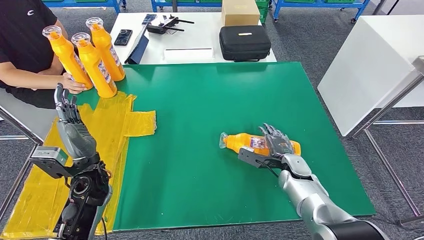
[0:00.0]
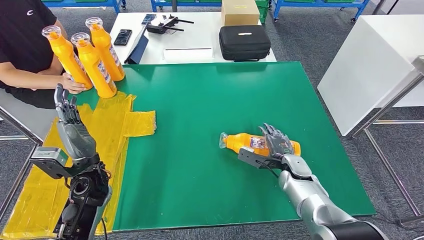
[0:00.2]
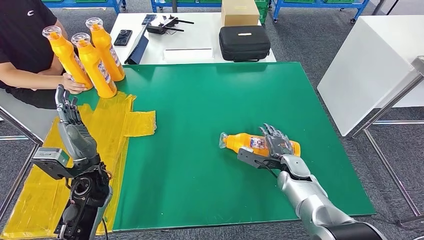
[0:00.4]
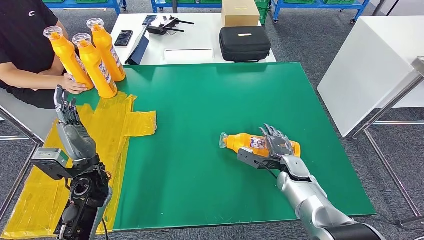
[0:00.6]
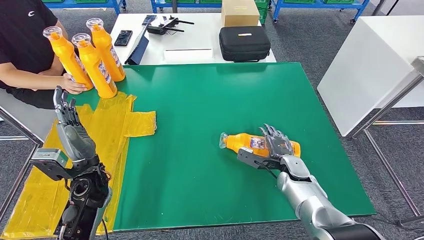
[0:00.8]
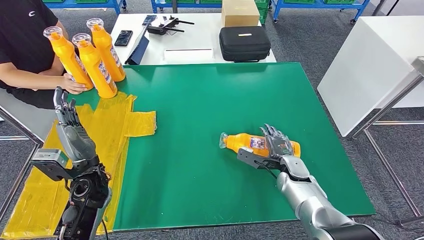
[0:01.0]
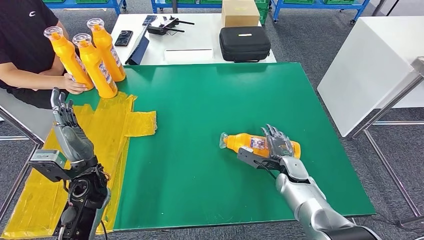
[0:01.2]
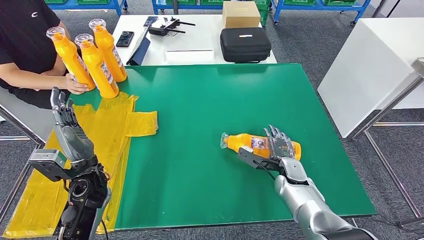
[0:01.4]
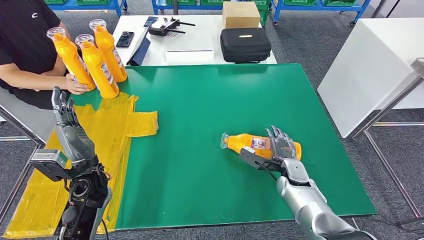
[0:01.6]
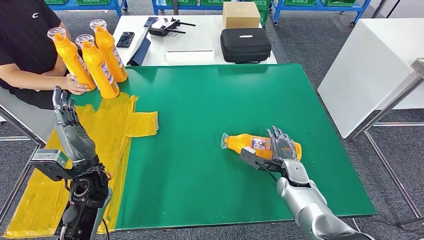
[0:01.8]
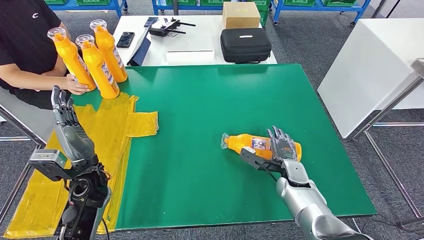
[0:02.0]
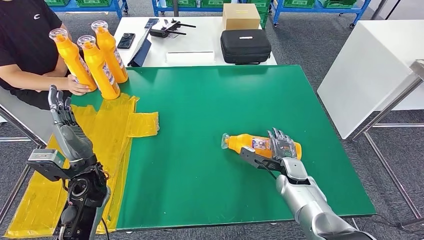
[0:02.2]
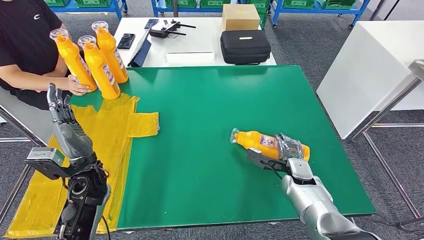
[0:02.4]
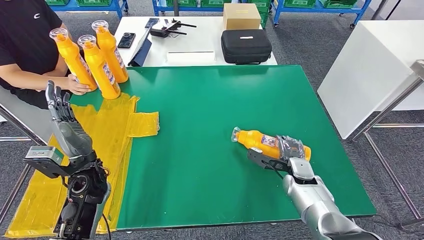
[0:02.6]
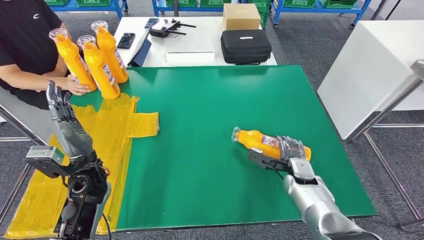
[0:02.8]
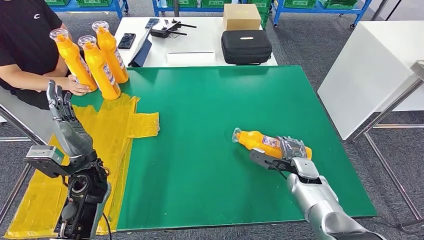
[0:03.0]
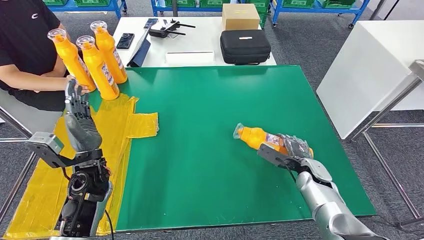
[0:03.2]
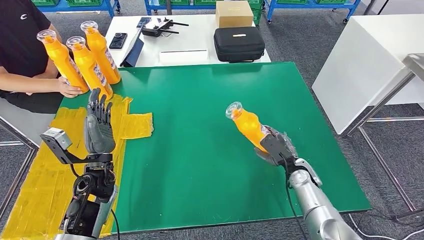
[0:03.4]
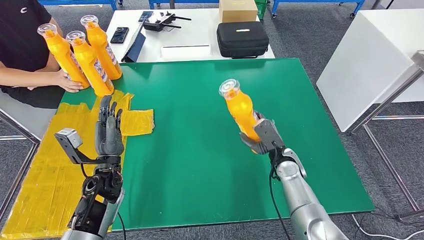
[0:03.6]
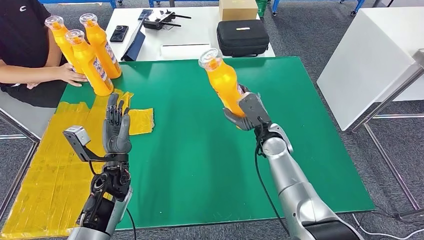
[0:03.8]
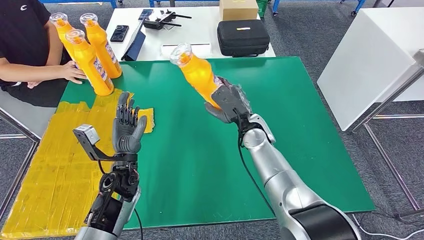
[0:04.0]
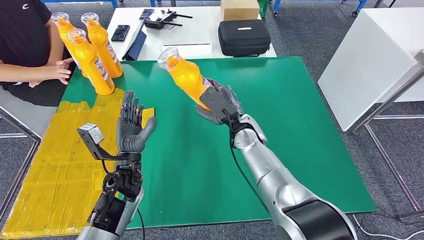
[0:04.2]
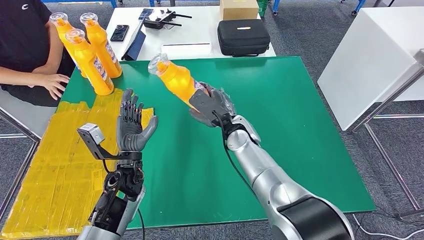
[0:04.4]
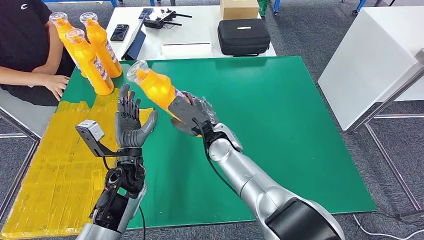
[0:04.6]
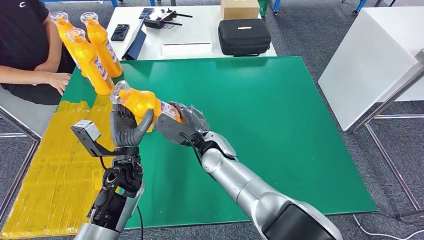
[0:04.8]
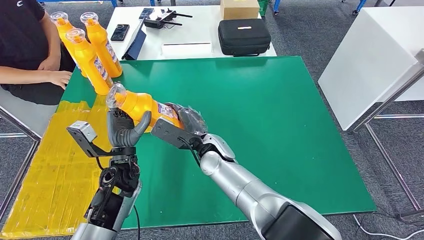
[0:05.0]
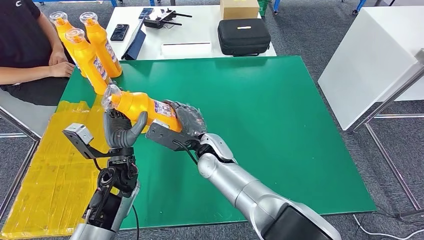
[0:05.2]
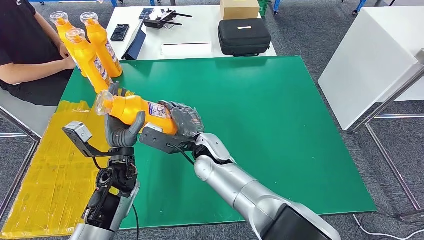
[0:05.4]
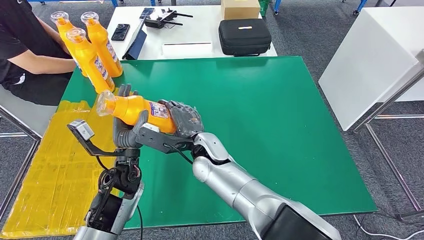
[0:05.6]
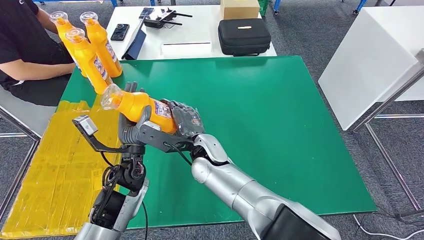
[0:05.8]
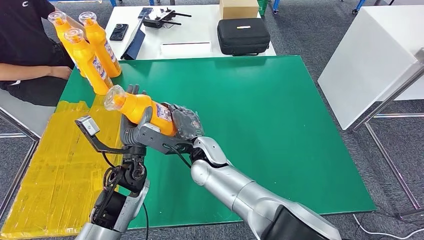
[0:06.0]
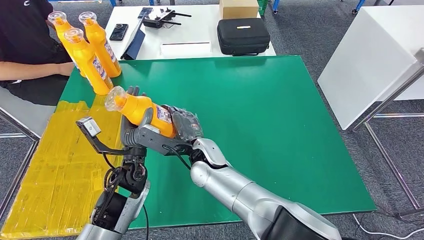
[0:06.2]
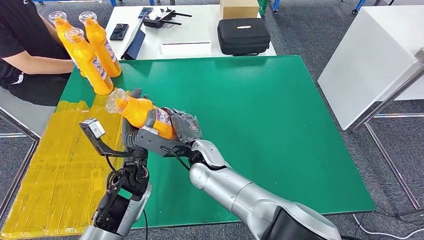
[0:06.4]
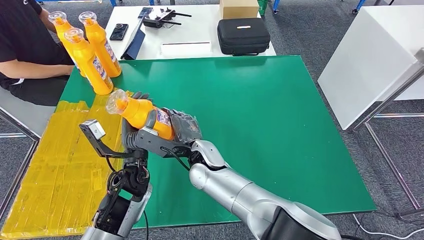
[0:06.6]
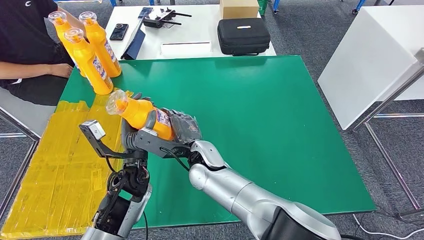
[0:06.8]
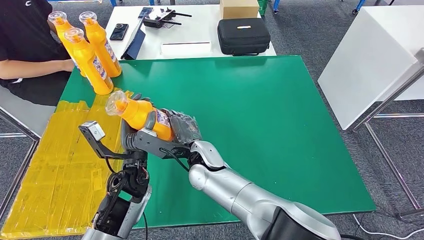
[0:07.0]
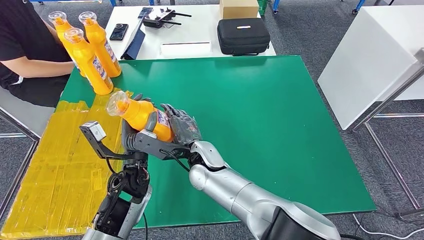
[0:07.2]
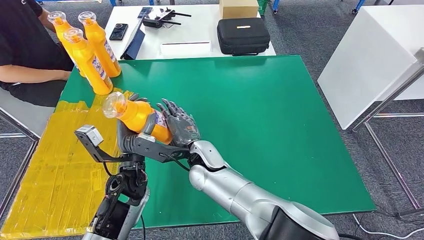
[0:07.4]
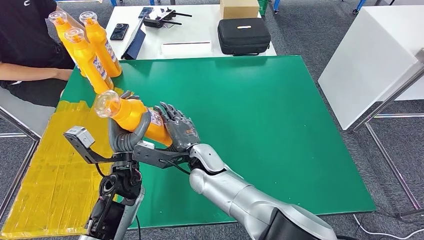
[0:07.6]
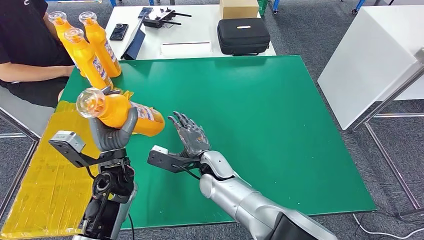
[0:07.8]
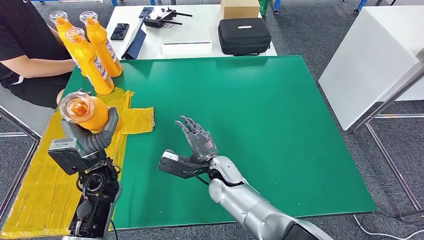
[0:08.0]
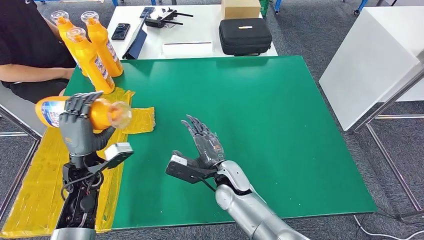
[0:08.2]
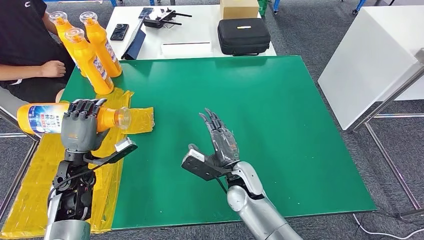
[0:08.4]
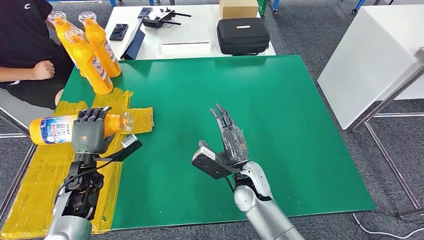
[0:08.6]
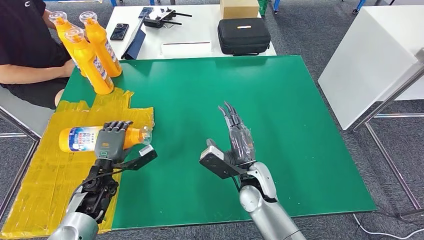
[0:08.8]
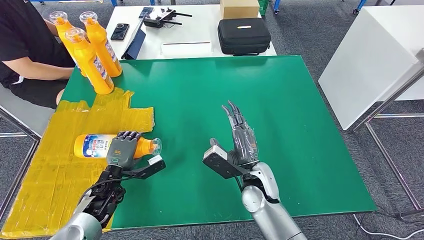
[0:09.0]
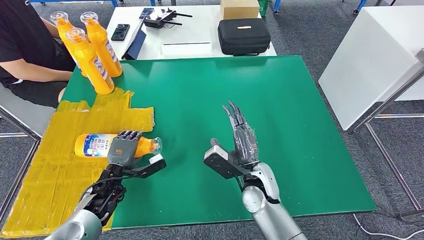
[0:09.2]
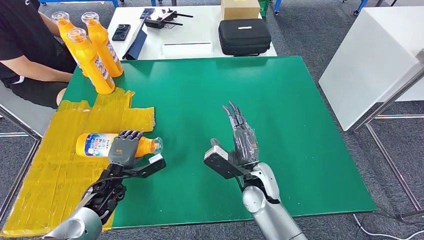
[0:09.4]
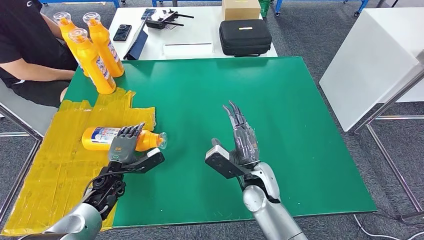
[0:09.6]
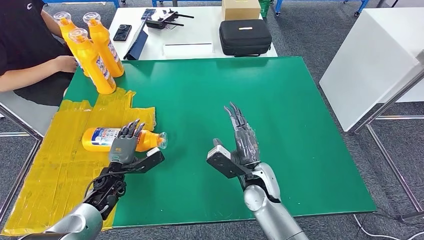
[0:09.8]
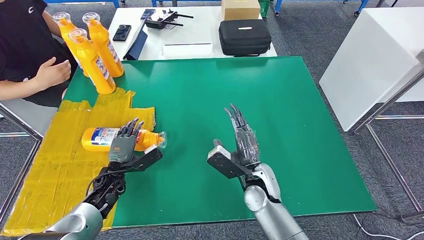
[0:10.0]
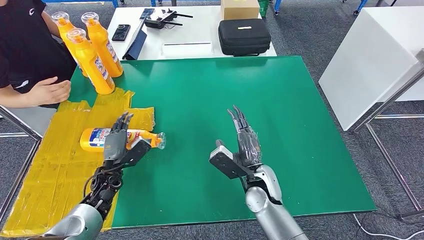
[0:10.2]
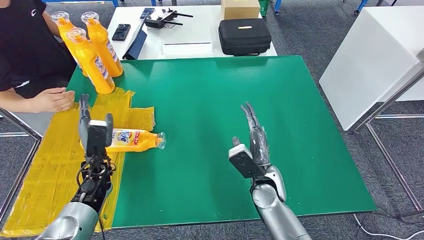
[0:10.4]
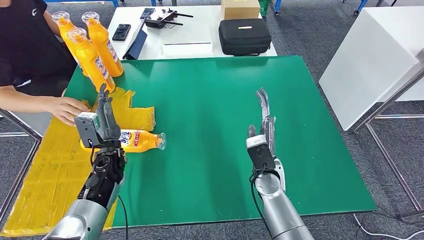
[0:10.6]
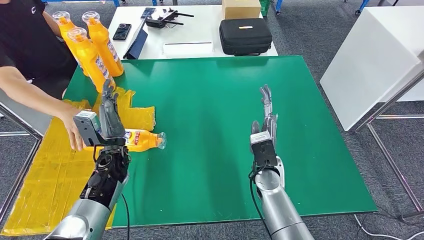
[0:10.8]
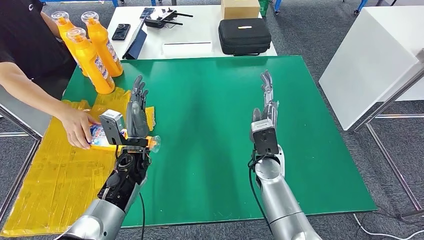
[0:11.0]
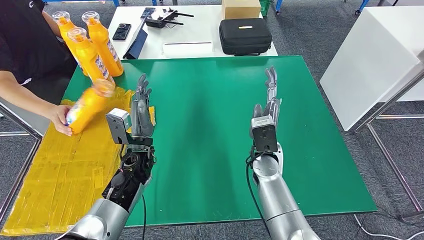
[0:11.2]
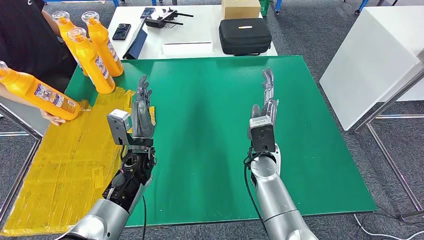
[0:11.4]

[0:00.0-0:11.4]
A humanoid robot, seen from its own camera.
Step, 0:00.0 to 0:04.8: Pick up the fast-moving consumer goods bottle from the table.
Step, 0:05.0 to 0:11.4: Flip the fast-moving consumer goods bottle to the front side.
0:00.0 to 0:02.8: The hands stay close to where they were, moving slightly.
0:05.6 to 0:07.2: The hands move only a little.
0:10.0 to 0:11.4: The left hand travels to the right and upward by some 15 cm. The right hand goes roughly 5 cm forward.
